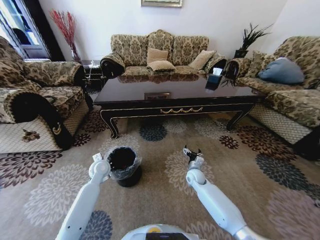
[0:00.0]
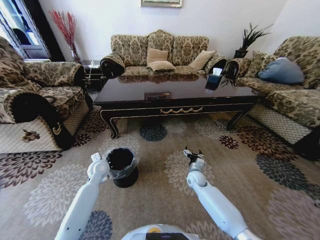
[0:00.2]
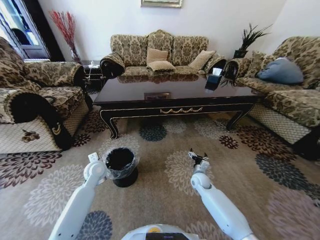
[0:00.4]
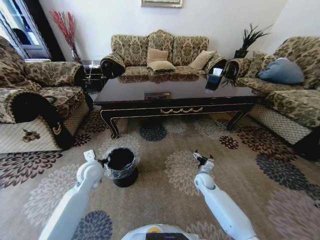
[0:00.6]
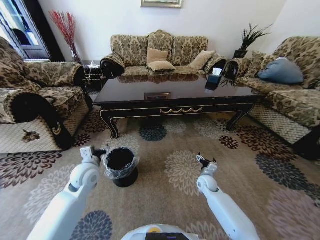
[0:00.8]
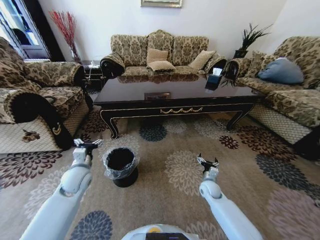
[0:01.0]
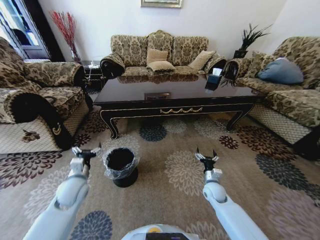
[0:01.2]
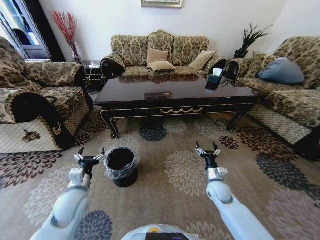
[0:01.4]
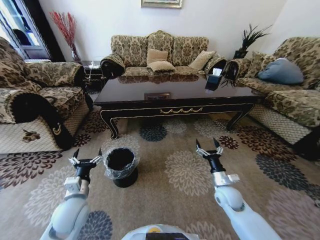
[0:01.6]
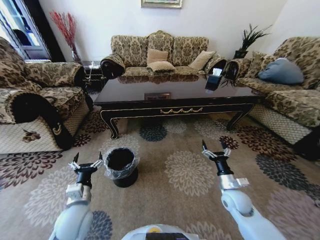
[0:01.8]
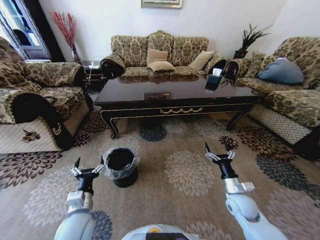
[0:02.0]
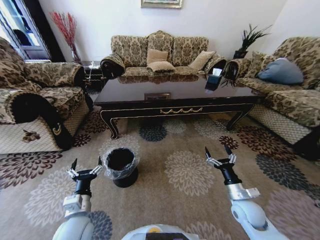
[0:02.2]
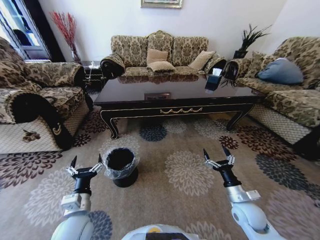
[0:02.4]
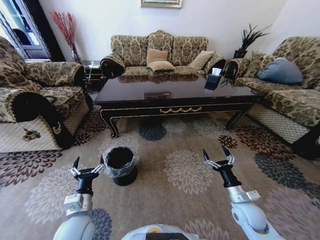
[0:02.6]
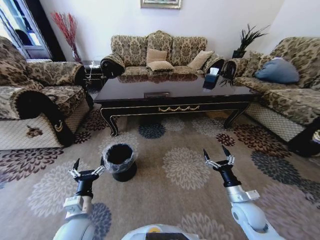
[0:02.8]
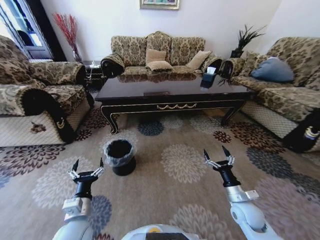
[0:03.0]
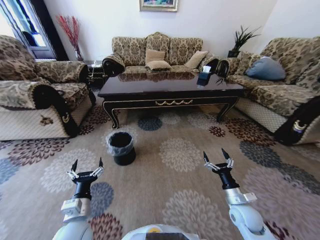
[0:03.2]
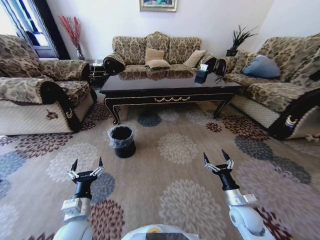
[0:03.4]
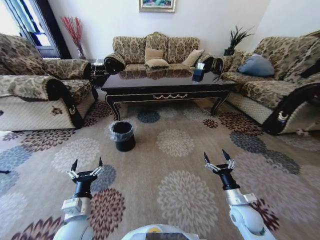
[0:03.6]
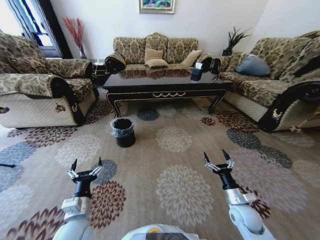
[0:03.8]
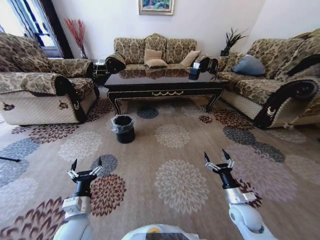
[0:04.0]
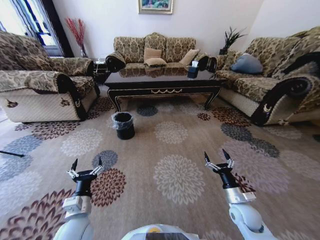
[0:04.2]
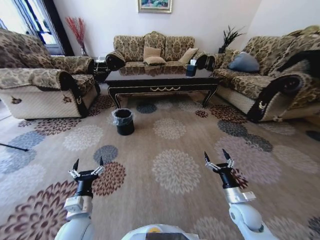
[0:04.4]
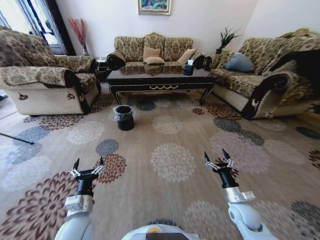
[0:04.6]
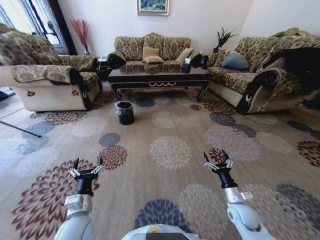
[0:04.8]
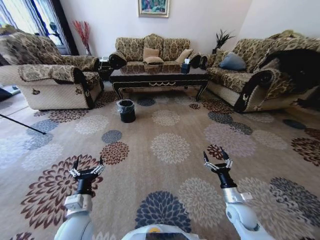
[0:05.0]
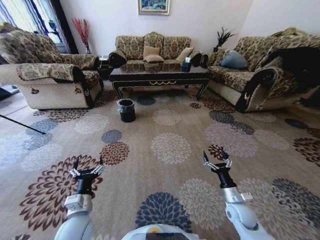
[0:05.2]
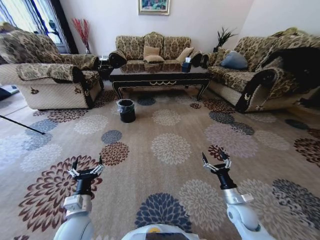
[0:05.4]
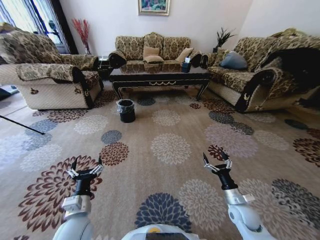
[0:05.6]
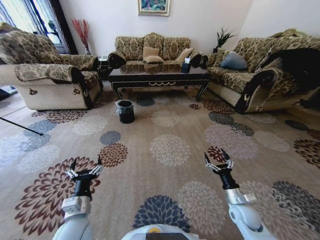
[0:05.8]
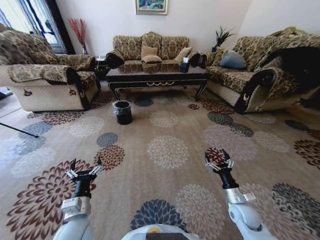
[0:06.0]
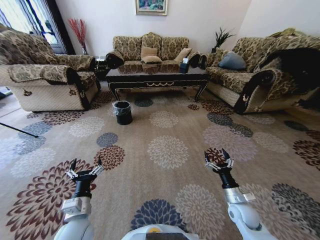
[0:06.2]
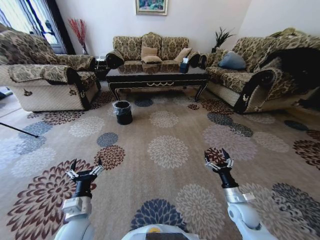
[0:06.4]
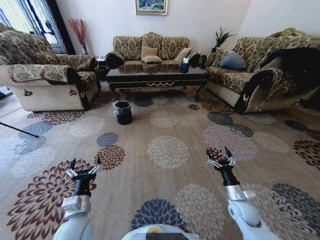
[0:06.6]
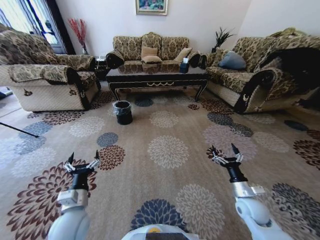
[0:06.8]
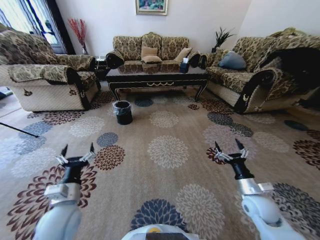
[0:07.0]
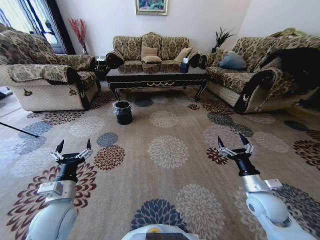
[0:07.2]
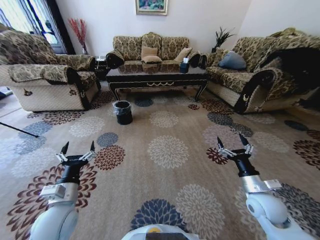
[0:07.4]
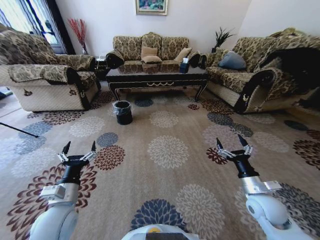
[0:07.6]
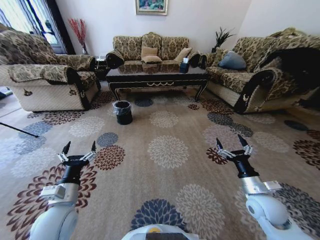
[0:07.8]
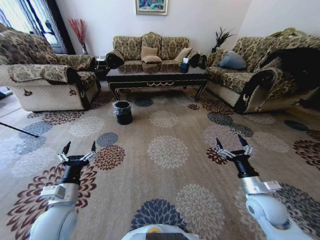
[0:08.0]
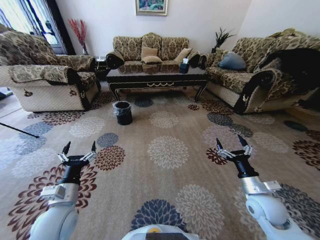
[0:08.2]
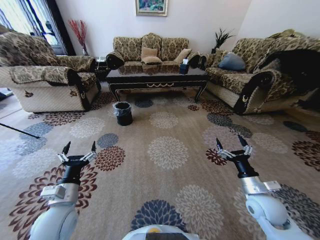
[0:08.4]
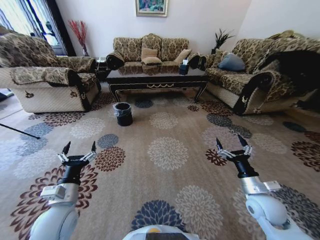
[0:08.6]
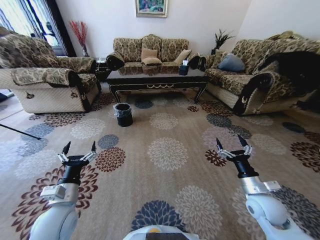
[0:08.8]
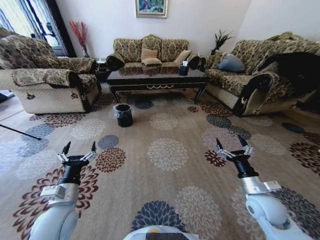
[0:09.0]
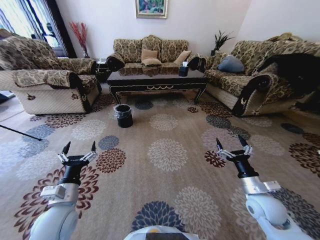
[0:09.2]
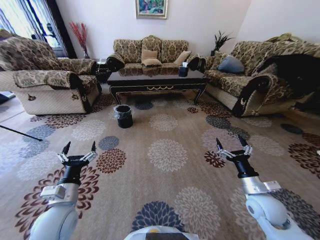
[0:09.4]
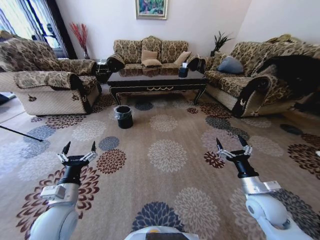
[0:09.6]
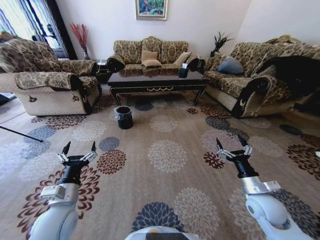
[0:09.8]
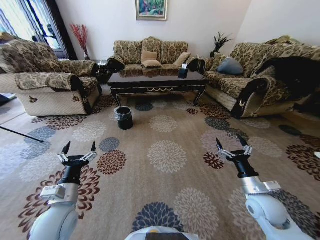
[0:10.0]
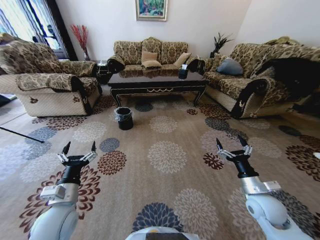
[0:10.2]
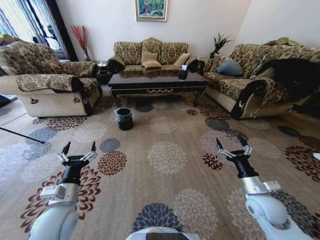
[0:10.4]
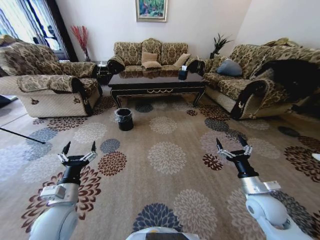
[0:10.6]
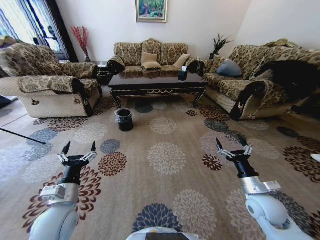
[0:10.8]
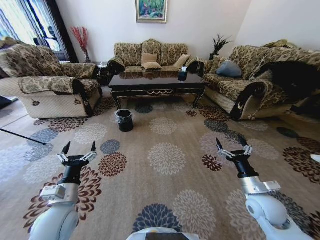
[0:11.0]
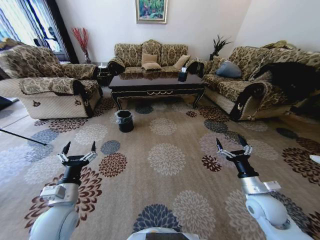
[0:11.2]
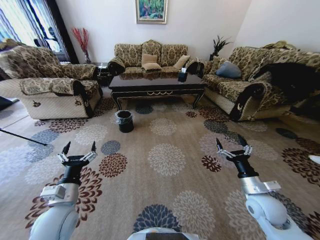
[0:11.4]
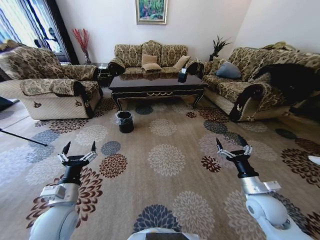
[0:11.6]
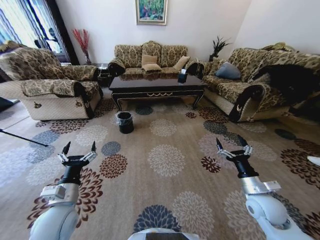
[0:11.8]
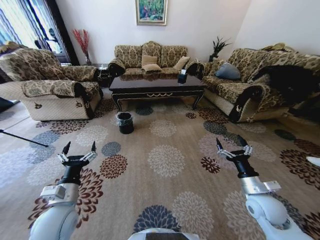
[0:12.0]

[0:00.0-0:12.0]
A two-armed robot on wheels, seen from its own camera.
Task of the whole recording: Move to the front of the table and pick up the trash from the floor, then place it into the trash bin.
0:00.0 to 0:01.6: The left gripper moves backward, about 20 cm, and opens. Meanwhile the right gripper shifts roughly 15 cm backward, to the right and upward.
0:01.6 to 0:03.0: The grippers both shift backward by approximately 5 cm.
0:06.0 to 0:07.6: The right gripper shifts roughly 10 cm upward, while the left gripper shifts by roughly 5 cm.
0:07.6 to 0:09.0: Both grippers stay about where they are.

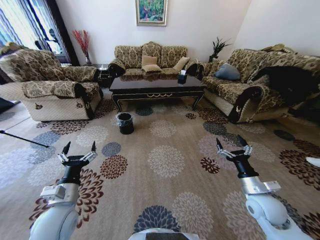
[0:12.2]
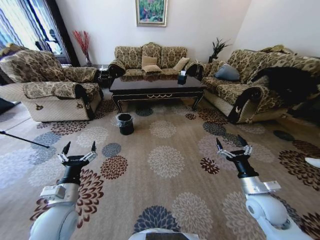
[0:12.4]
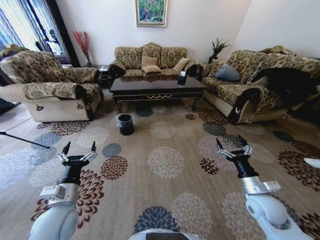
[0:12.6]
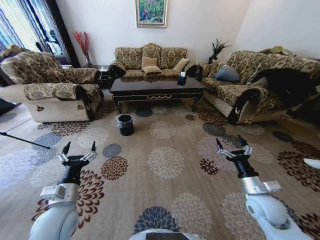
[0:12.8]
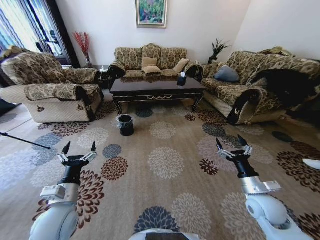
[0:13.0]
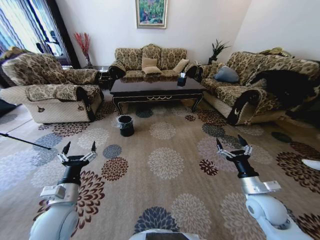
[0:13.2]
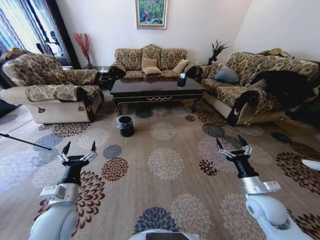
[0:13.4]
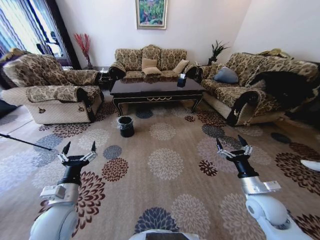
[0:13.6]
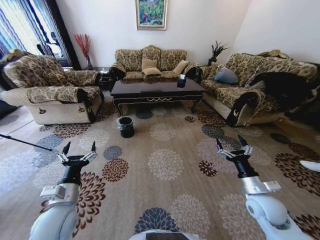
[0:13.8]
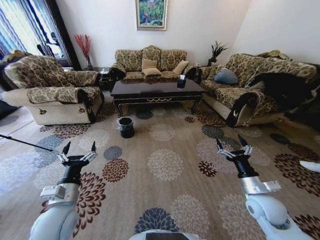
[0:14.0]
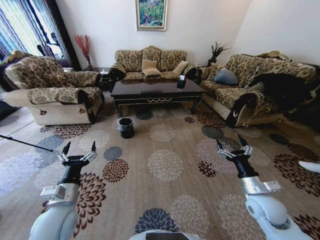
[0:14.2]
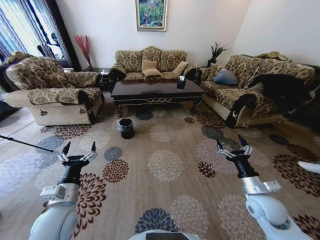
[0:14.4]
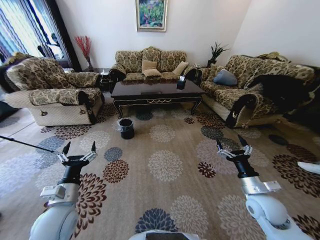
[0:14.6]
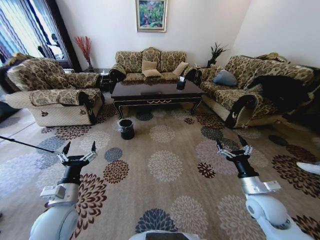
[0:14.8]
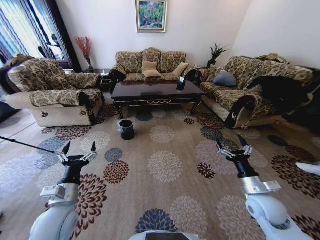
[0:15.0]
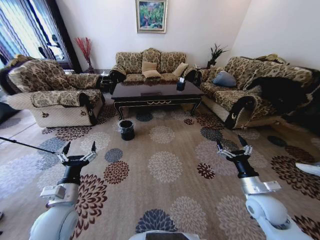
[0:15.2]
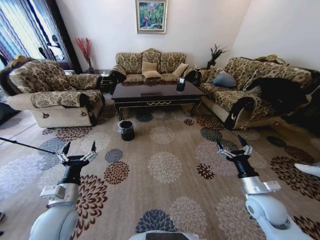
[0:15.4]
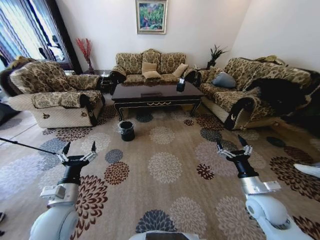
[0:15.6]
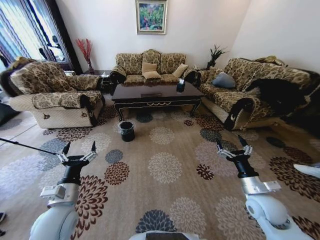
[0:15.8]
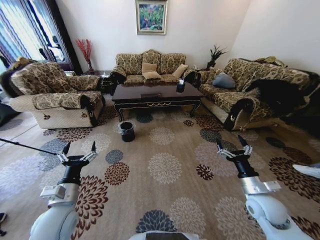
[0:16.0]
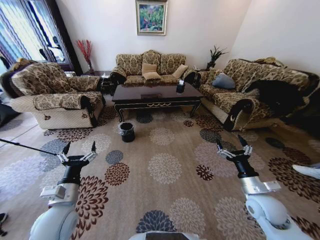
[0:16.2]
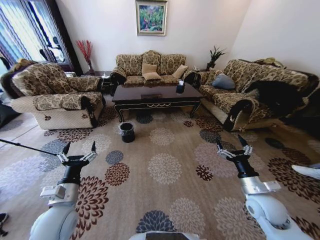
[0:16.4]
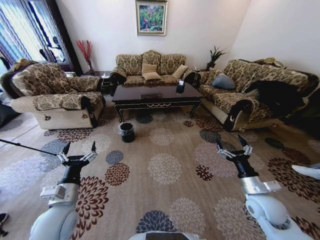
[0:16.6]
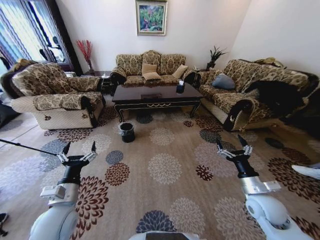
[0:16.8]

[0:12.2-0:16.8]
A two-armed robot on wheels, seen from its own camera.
Task of the whole recording: Move to the front of the table and pick up the trash from the floor, then place it into the trash bin.
0:13.8 to 0:16.8: The two grippers keep their place.

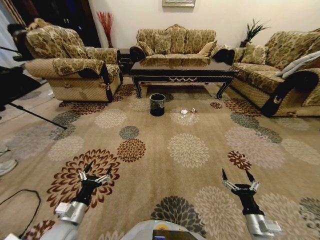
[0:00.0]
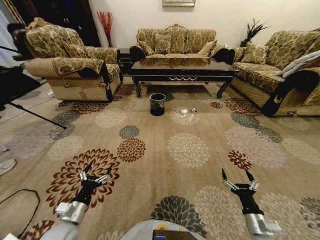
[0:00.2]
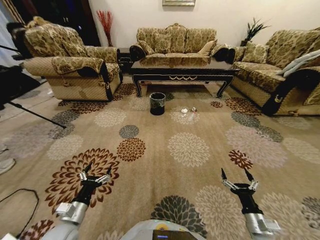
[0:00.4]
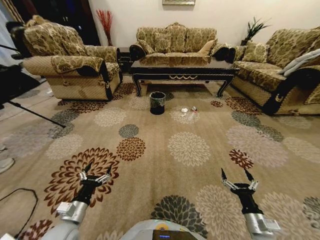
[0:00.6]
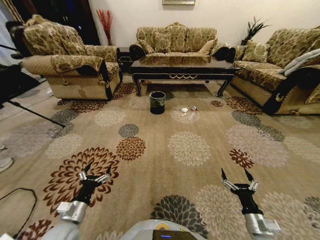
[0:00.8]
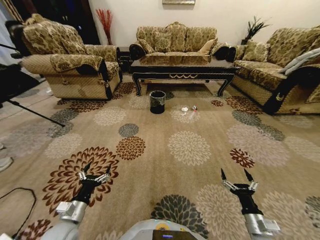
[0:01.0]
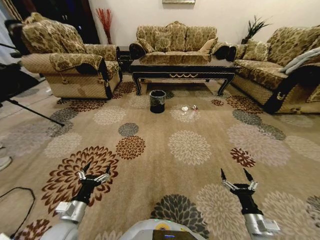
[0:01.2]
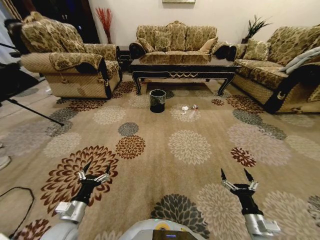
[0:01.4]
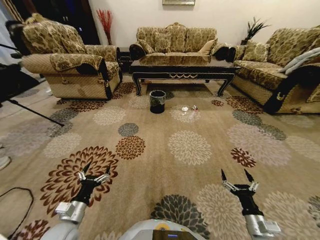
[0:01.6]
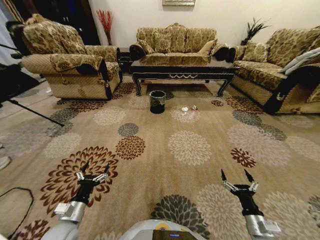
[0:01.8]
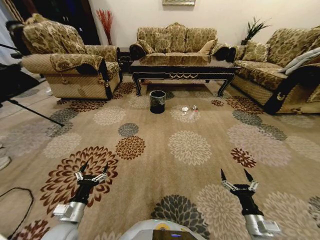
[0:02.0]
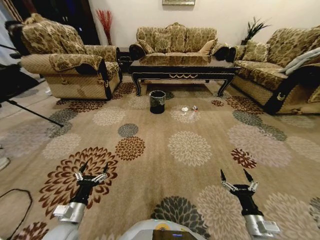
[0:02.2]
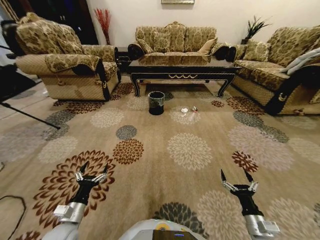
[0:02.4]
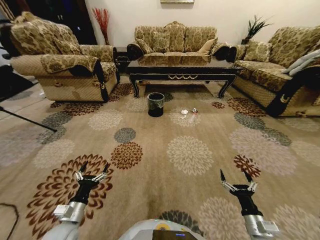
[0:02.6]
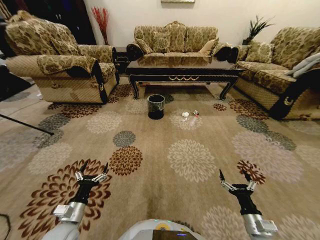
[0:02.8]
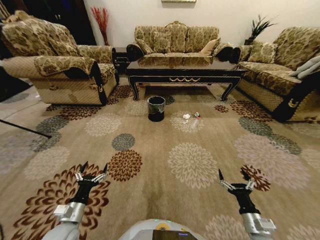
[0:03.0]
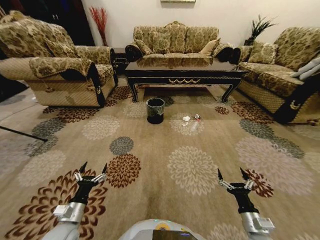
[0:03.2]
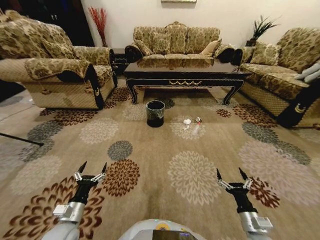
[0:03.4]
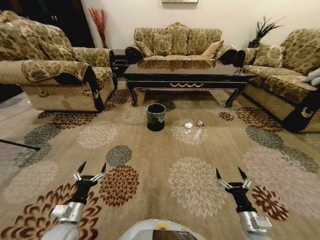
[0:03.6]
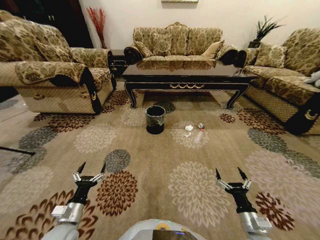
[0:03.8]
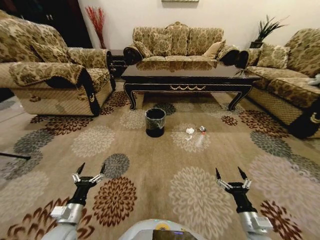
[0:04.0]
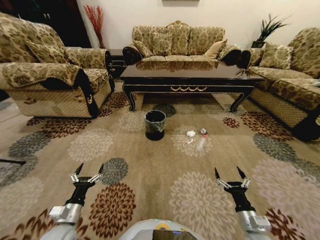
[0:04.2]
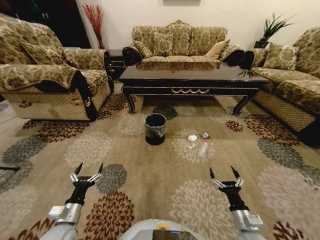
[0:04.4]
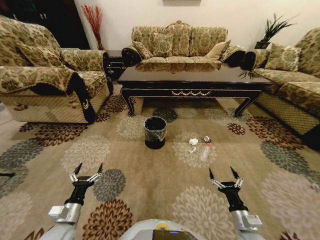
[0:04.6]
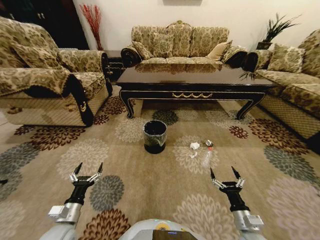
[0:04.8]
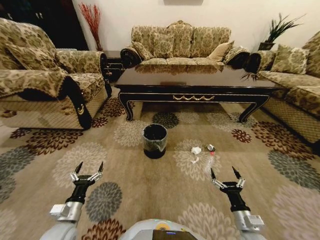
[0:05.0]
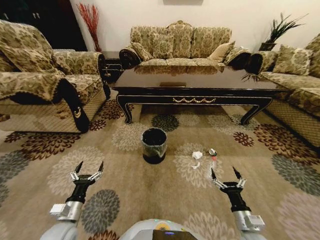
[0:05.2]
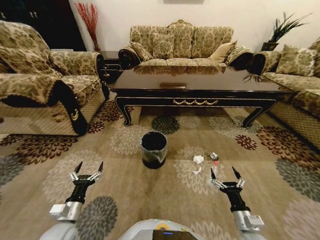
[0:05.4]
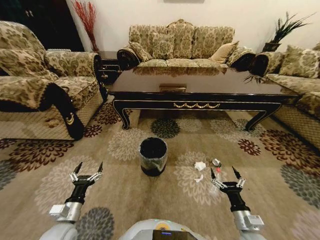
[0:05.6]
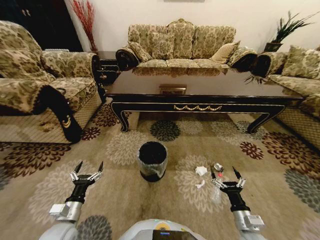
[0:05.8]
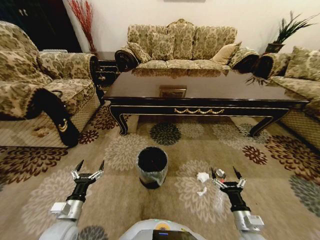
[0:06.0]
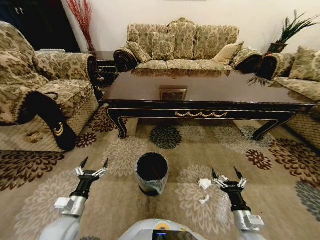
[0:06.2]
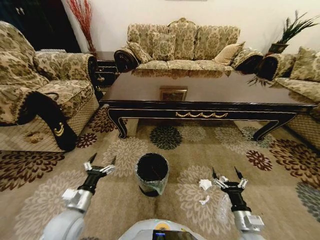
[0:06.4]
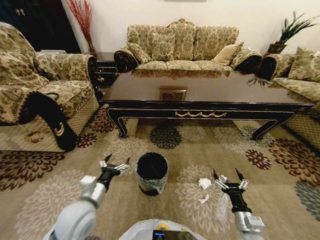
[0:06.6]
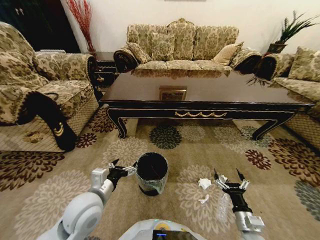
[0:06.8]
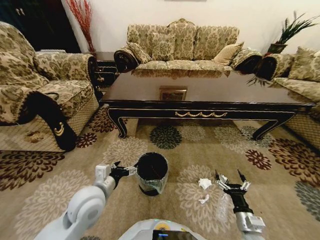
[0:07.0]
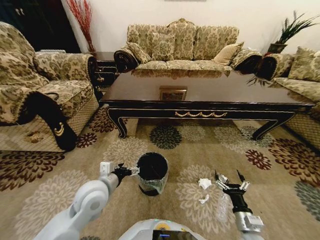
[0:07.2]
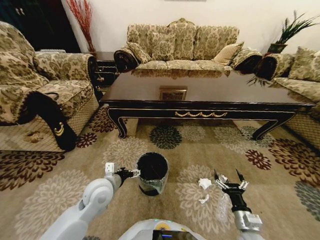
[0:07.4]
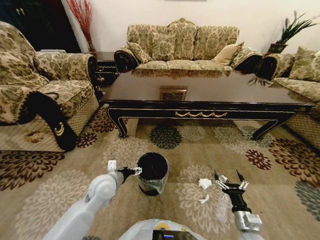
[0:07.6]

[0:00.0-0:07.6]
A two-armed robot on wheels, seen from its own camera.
Task of the whole recording: Move to the front of the table and pick up the trash from the floor, then place it into the trash bin.
0:06.0 to 0:07.6: The left gripper is displaced forward, to the right and upward by roughly 20 cm.
